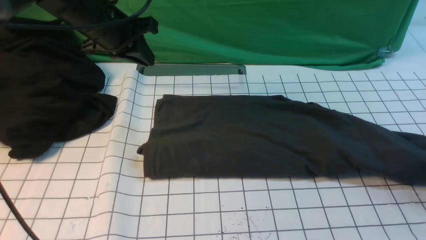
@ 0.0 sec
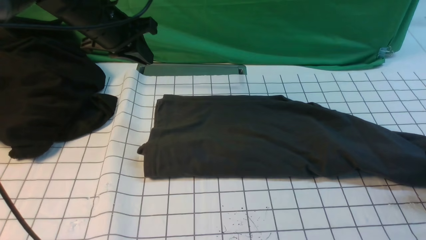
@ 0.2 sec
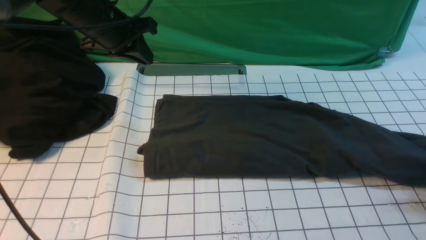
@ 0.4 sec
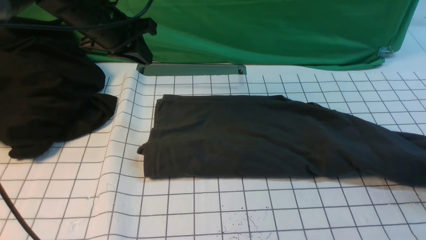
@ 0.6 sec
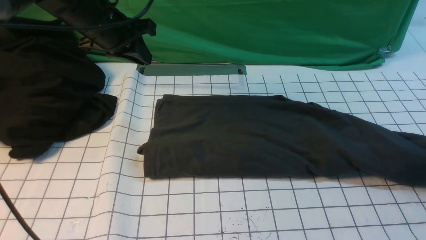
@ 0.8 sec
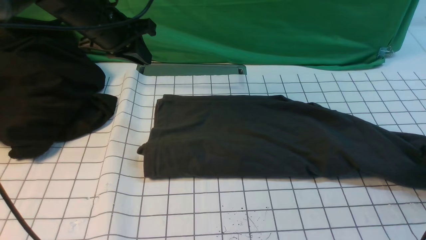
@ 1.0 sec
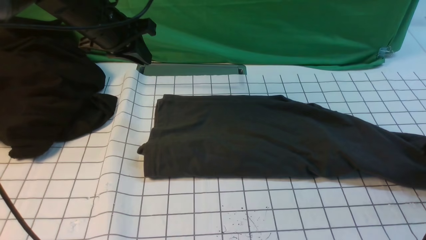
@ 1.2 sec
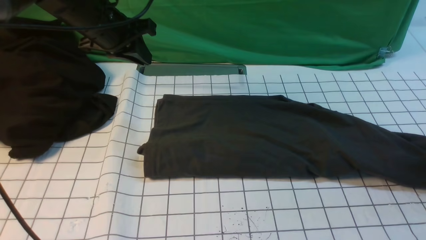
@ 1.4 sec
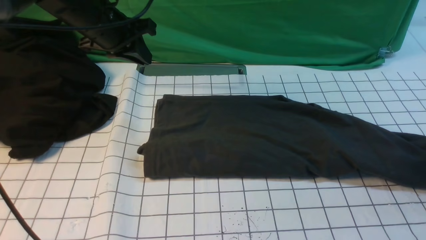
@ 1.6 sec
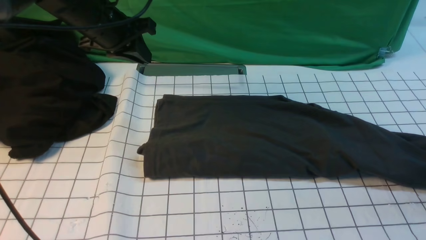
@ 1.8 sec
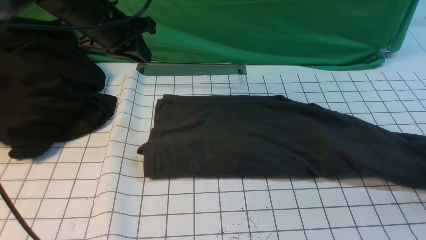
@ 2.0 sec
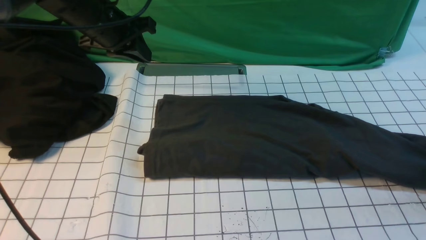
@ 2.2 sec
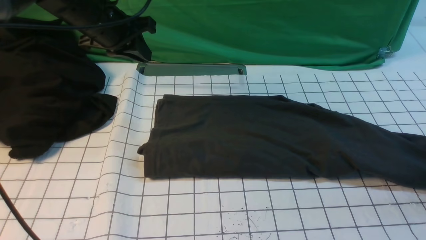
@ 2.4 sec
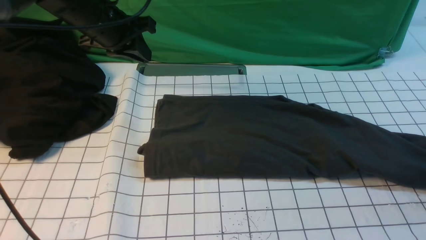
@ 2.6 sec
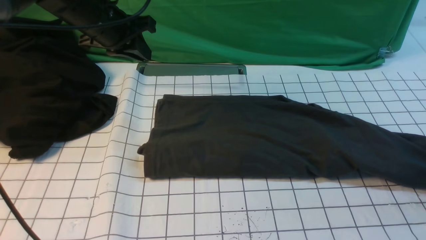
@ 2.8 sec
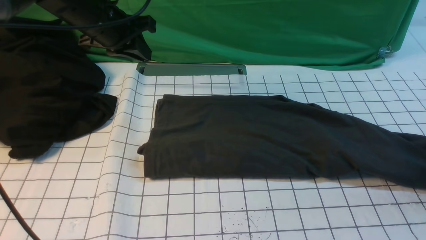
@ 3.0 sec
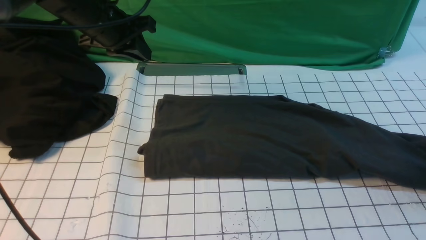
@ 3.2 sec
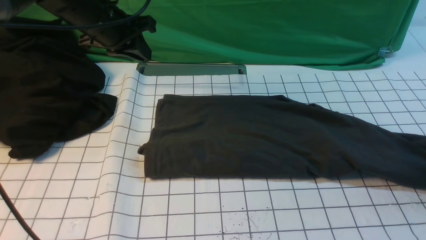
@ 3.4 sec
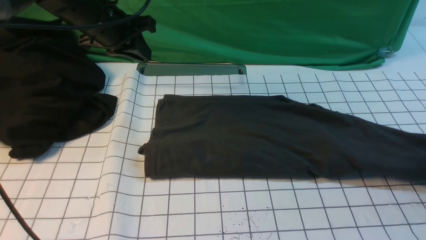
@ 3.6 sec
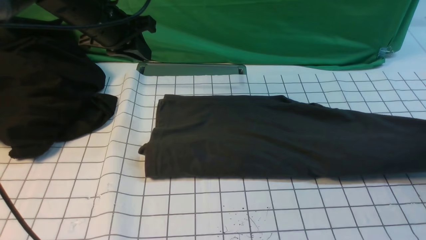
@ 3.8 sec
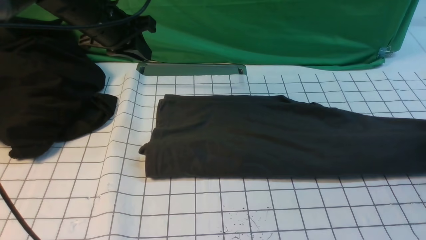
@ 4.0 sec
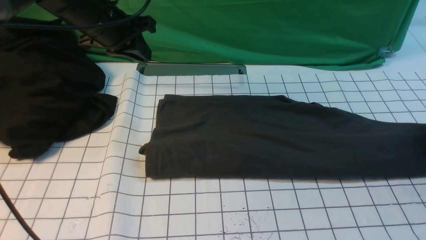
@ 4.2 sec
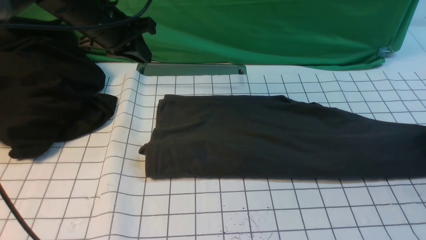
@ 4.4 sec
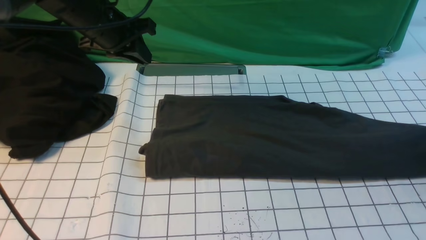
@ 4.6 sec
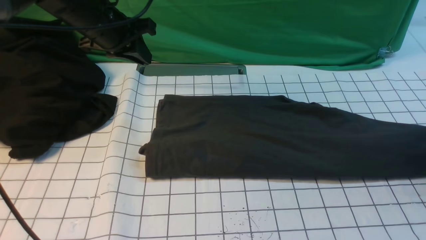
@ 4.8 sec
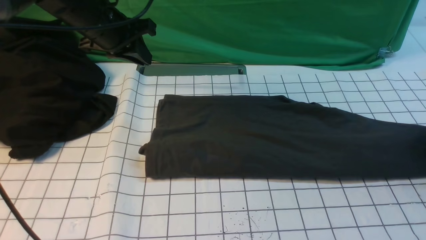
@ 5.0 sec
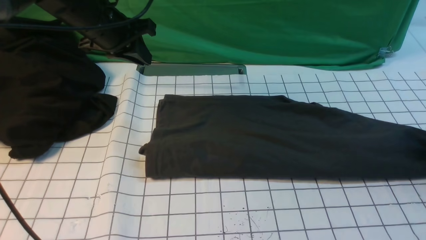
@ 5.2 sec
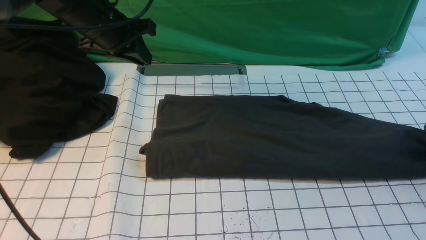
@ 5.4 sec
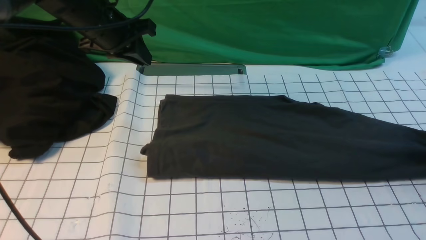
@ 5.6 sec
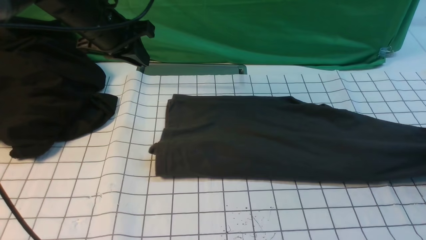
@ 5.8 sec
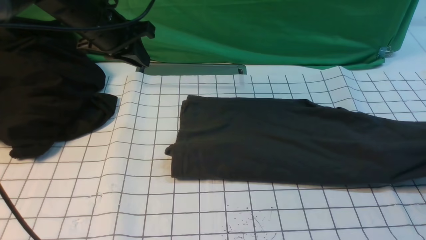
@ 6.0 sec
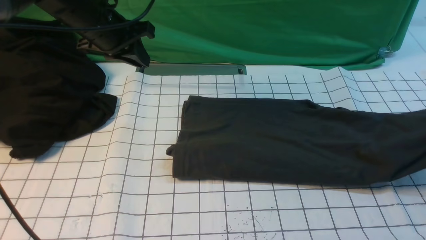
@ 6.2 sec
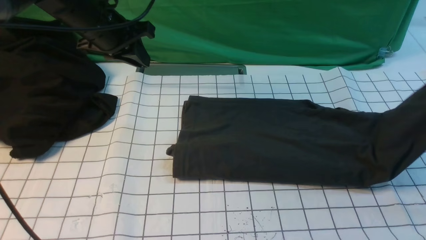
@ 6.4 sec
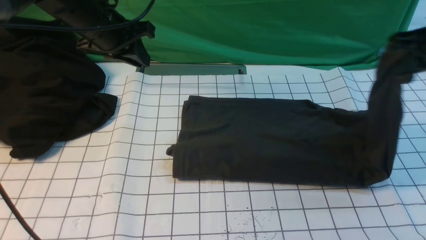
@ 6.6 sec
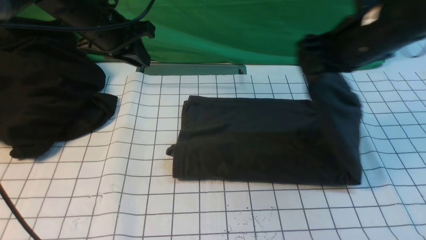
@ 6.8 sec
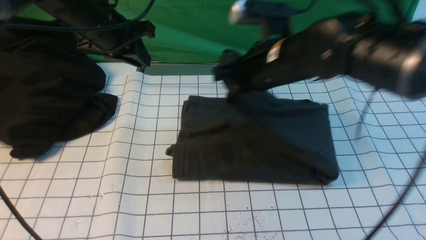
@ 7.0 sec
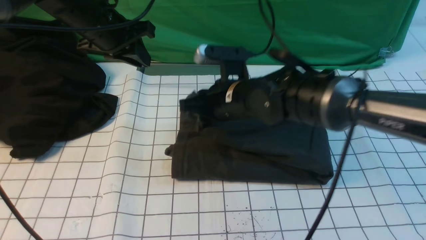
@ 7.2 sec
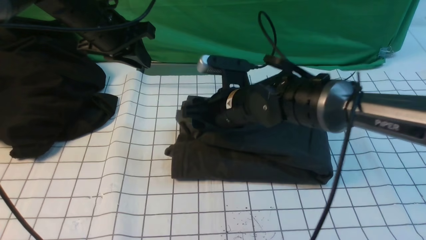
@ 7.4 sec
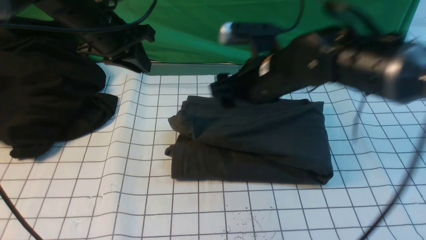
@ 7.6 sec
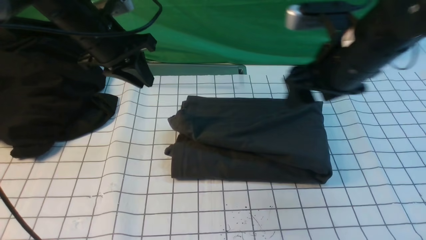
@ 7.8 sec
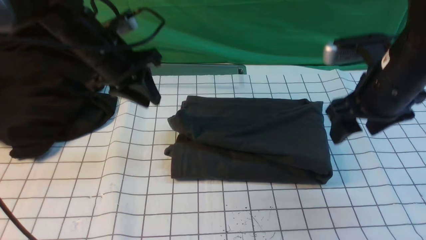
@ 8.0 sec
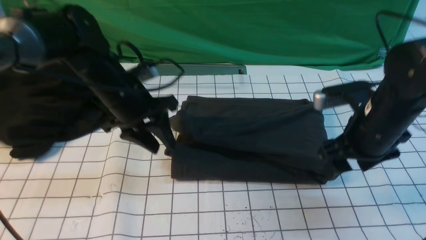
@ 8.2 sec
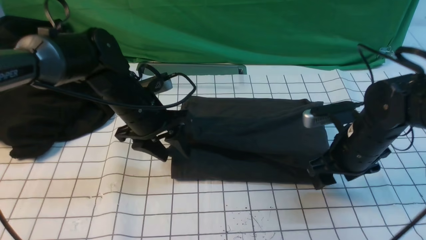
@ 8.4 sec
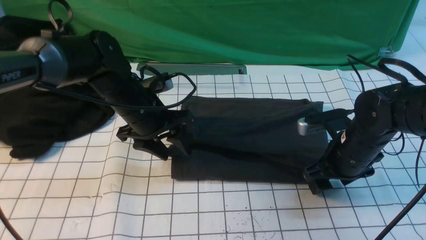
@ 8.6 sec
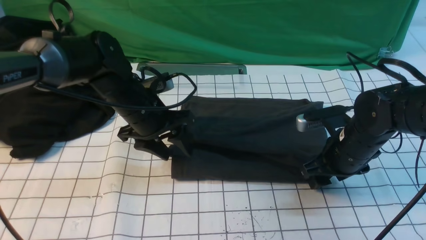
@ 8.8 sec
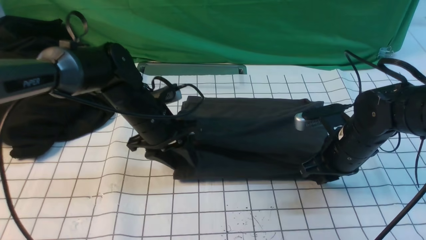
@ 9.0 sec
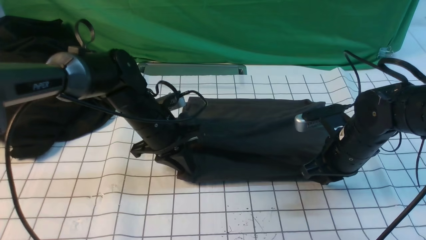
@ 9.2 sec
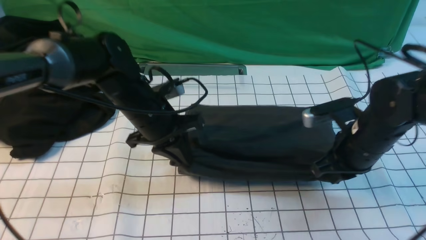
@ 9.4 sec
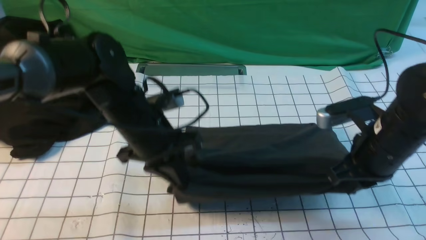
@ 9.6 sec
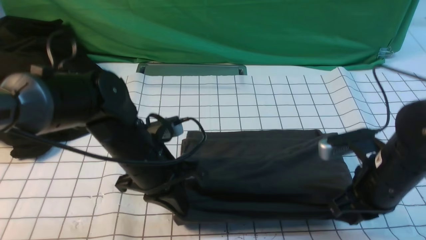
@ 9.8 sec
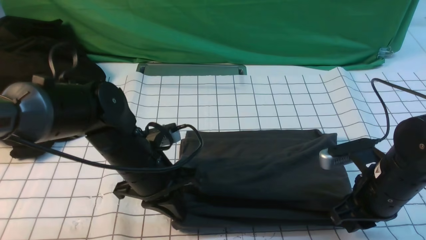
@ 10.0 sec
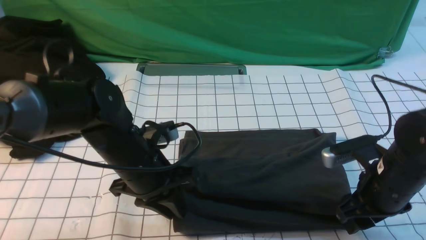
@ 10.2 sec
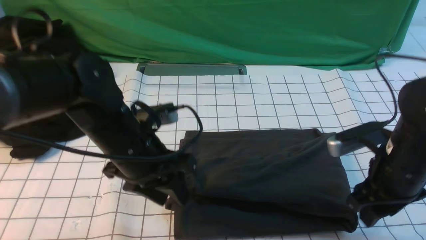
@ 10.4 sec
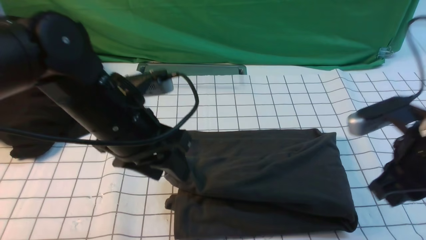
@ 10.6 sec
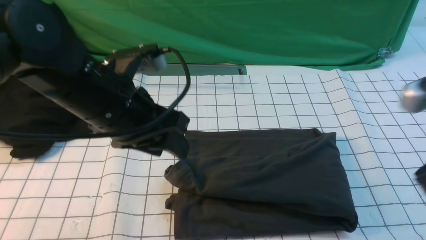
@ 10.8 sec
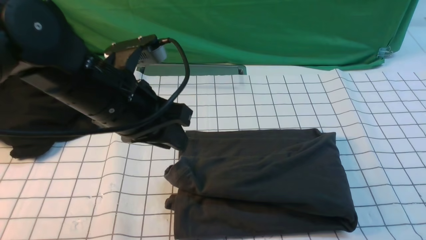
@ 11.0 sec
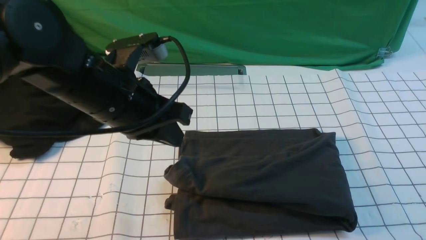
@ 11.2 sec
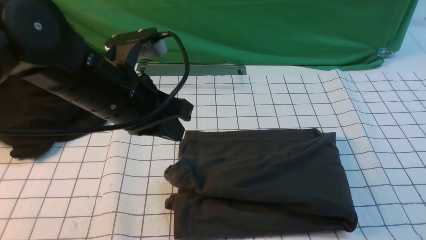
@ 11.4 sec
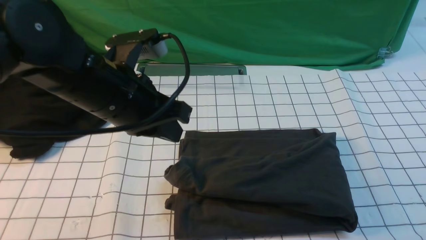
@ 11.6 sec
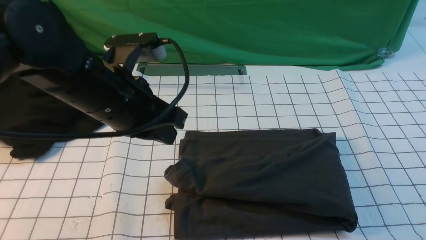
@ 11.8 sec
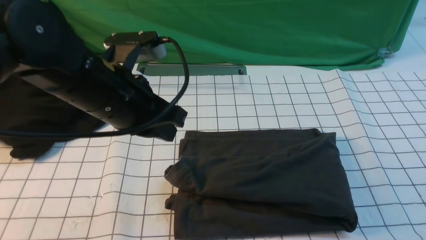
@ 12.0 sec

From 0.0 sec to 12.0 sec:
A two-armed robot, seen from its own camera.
Step, from 0.0 sec to 5.6 sec: use the right arm to clamp the right edge of the fabric.
Step, from 5.8 sec to 7.4 sec: use the right arm to drag the right edge of the fabric to the left and folds it over the left edge.
From 3.0 sec to 4.4 sec: The grippers stay close to where they were, moving slightly.
From 4.4 sec to 6.0 sec: The right gripper heads upward, covering about 5 cm, and closes.
From 6.0 sec to 7.6 sec: The right gripper travels to the left by some 40 cm, and opens up.
From 7.6 sec to 9.0 sec: The left gripper travels downward, to the right and backward by some 15 cm. The right gripper is displaced downward and to the right by approximately 15 cm, and closes its fingers.
From 9.0 sec to 10.4 sec: Both grippers move backward and upward, some 10 cm. The left gripper closes, then reopens.
From 10.4 sec to 12.0 sec: The right gripper shifts approximately 20 cm backward, and closes its fingers, while the left gripper travels upward by some 5 cm, and closes up.

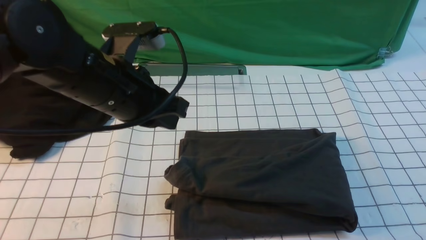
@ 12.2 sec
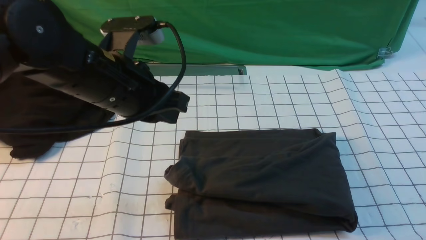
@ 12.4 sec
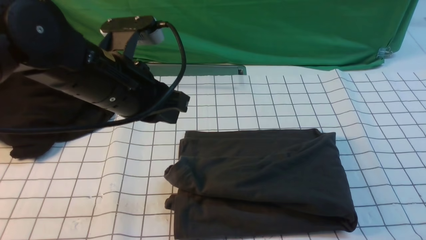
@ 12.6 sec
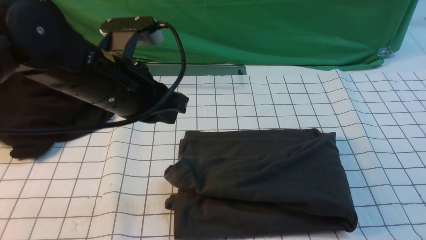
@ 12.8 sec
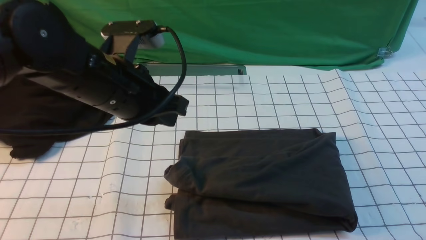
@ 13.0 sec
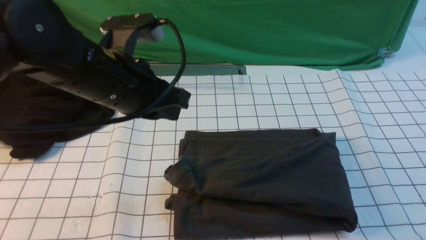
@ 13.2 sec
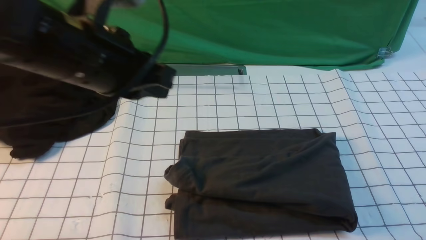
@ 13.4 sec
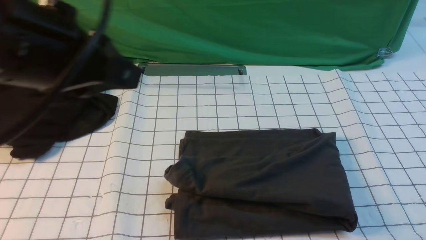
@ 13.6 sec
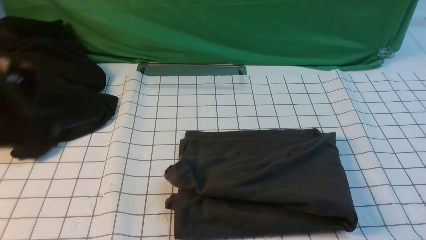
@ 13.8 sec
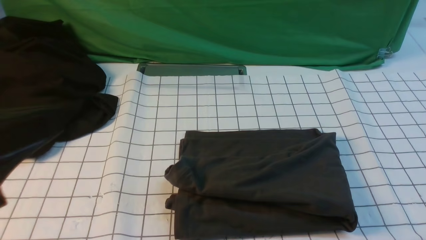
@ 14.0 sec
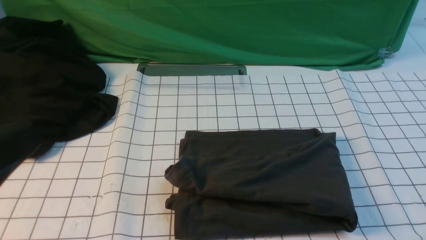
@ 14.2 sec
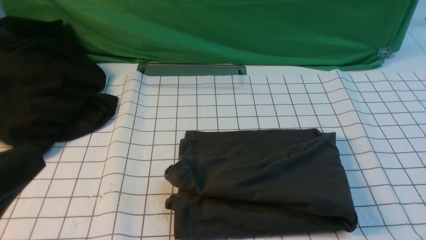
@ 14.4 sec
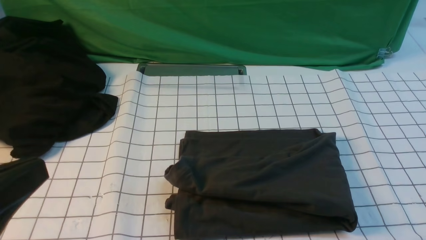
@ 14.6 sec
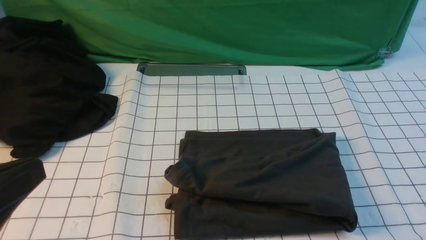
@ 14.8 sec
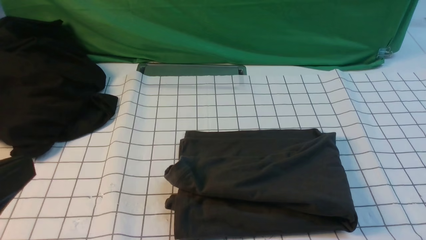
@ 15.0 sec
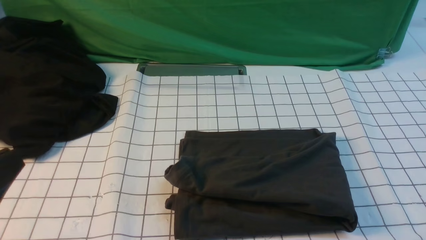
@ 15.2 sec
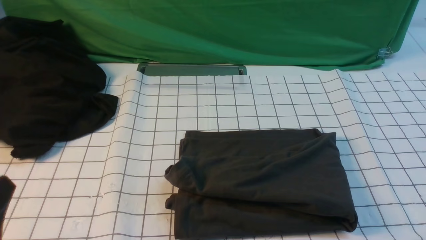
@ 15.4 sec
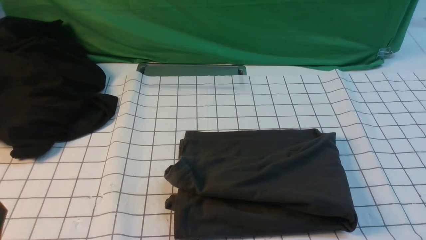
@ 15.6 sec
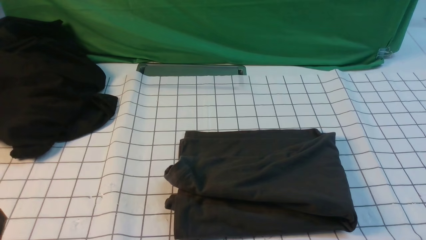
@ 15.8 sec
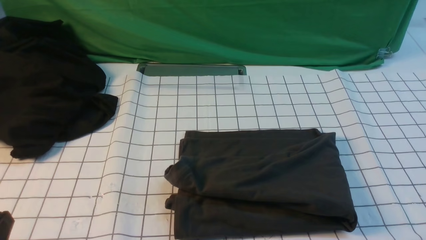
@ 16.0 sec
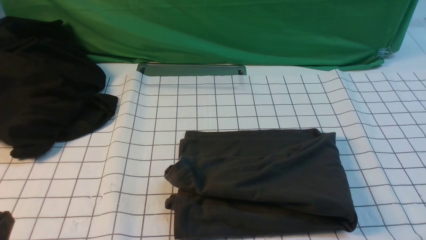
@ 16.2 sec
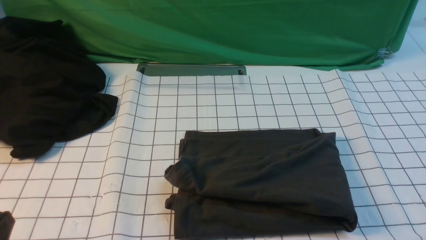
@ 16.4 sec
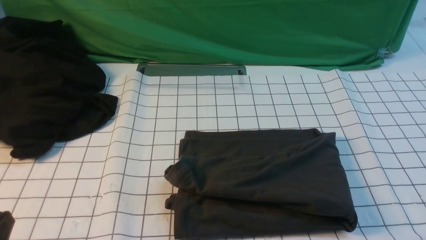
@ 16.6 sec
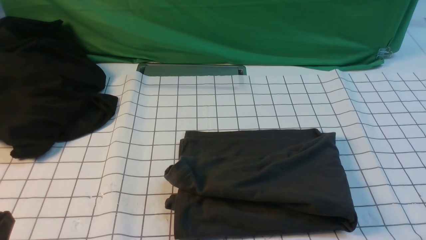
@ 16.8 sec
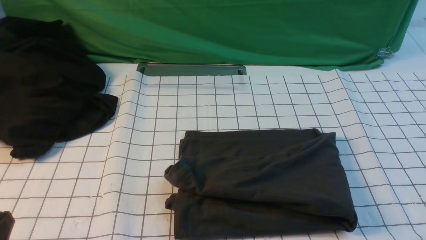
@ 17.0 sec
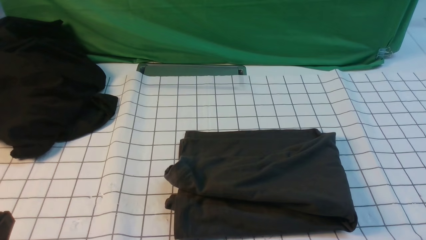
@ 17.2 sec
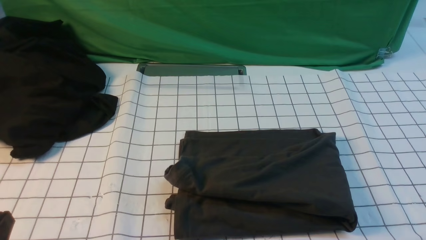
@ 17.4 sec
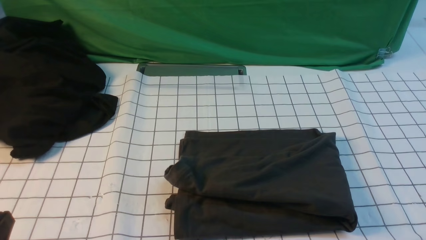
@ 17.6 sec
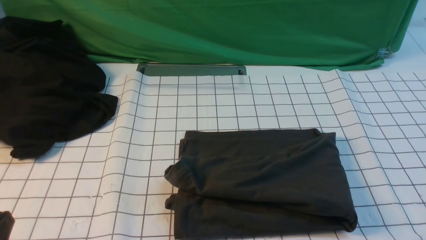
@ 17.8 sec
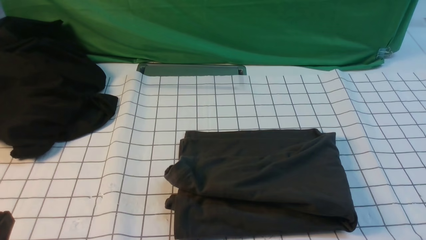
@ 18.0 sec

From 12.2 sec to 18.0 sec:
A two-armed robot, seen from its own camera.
From 12.2 sec to 13.6 sec: The right gripper is displaced downward by approximately 10 cm. The left gripper moves backward and upward, roughly 15 cm.
From 13.6 sec to 15.0 sec: The left gripper heads backward, downward and to the left, covering roughly 15 cm.
From 15.0 sec to 16.6 sec: The left gripper heads downward, covering about 15 cm.
From 16.6 sec to 18.0 sec: Both grippers stay about where they are.
